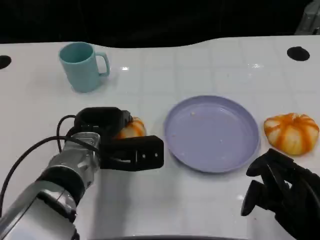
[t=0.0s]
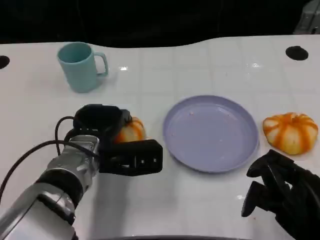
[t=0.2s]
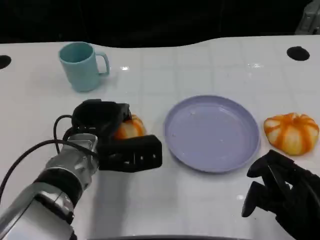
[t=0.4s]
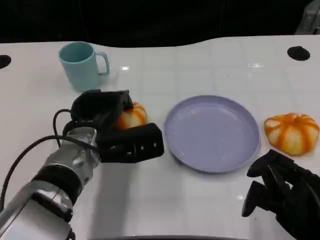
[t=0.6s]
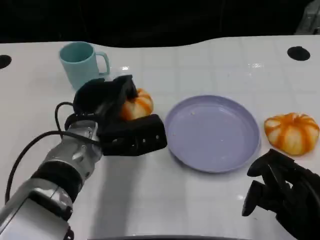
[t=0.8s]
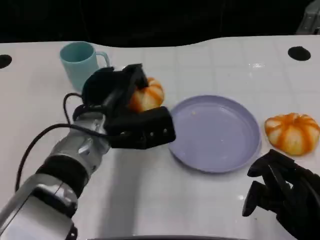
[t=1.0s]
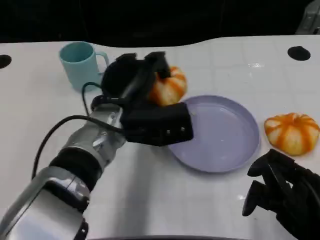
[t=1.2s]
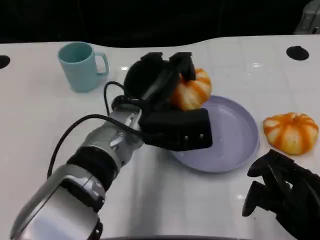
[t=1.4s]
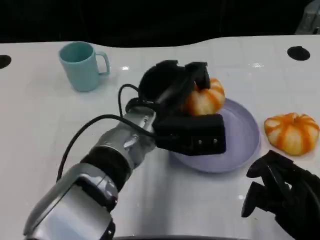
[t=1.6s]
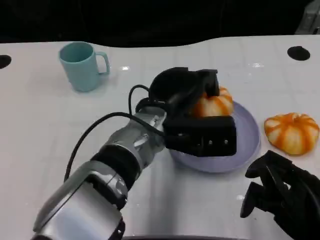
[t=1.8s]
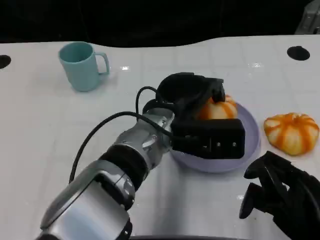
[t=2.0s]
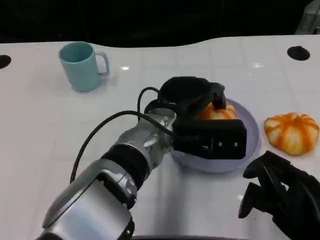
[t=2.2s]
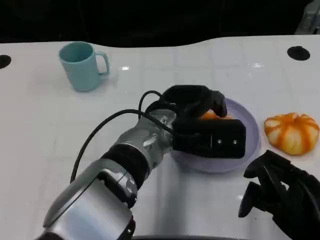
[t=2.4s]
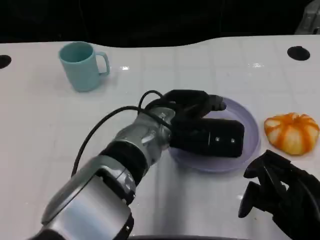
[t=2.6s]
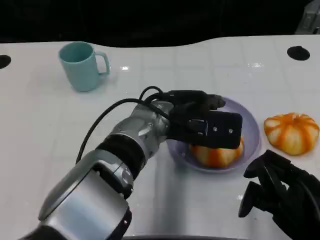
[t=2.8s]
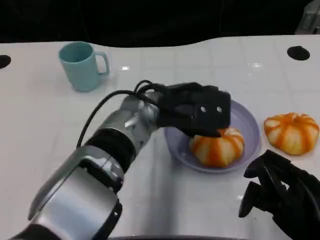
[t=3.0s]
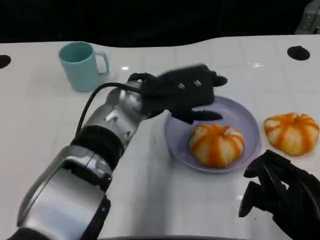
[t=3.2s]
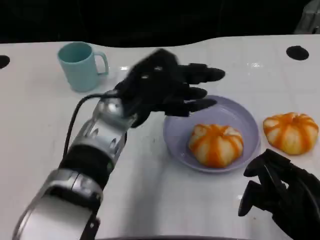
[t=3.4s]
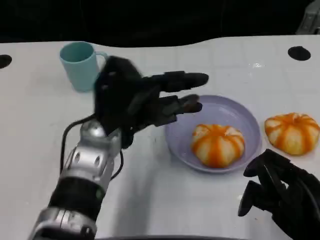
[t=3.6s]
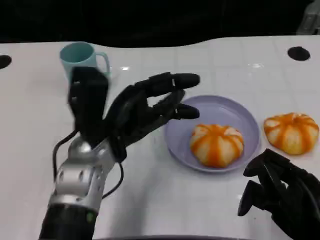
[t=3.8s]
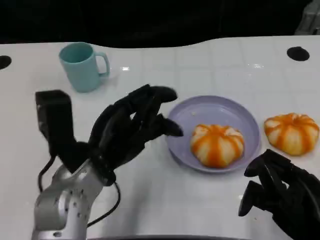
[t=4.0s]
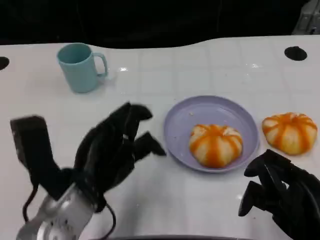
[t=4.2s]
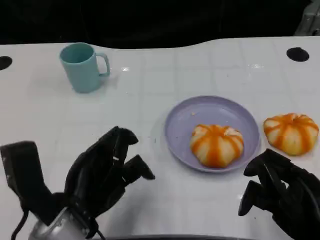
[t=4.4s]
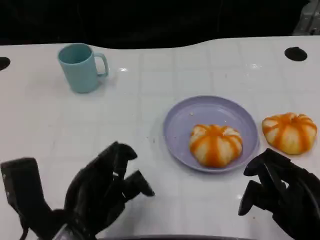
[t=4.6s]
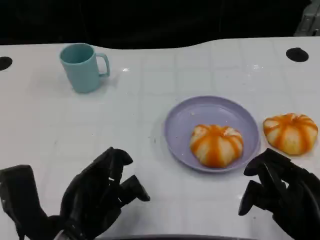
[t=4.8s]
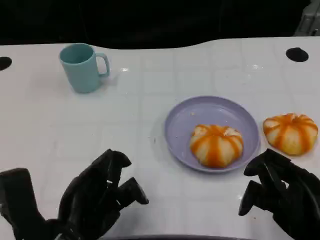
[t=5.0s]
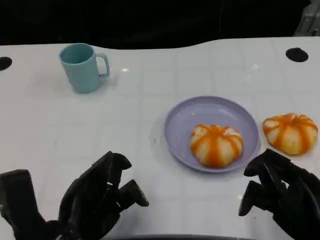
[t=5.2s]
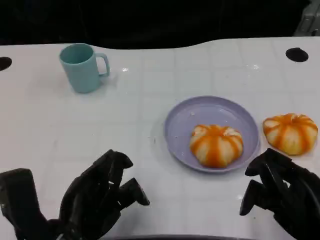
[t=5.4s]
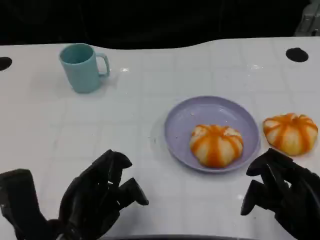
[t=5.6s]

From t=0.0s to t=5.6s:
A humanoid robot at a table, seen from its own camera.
Task of the whole recording: Grasp the bread from the table and place it into the plate.
From t=0.0s to t=1.4s: The left hand is displaced to the right and upward by some 10 cm.
From t=2.8s to t=4.2s: The left hand goes about 15 cm to the left and backward.
From t=4.2s to t=5.6s: The left hand changes place by approximately 5 cm.
